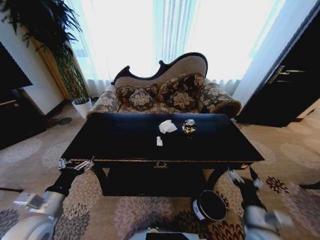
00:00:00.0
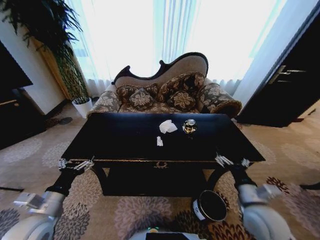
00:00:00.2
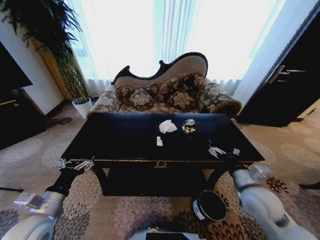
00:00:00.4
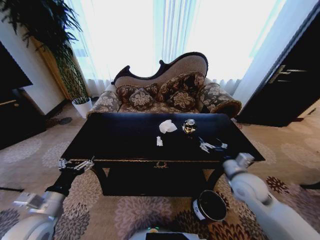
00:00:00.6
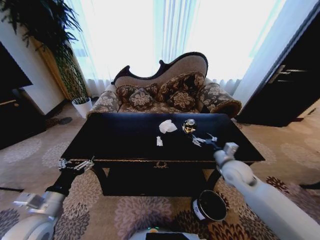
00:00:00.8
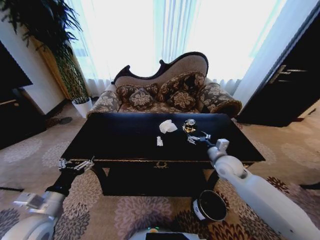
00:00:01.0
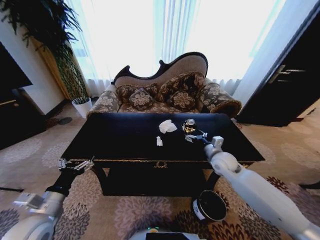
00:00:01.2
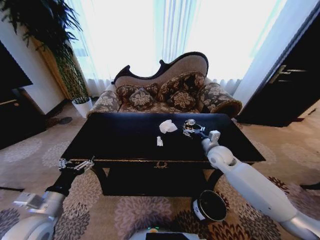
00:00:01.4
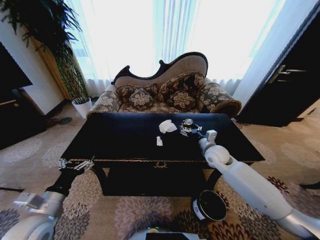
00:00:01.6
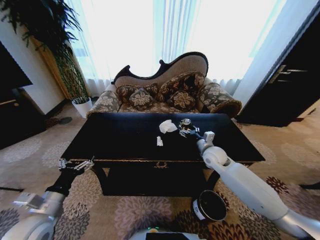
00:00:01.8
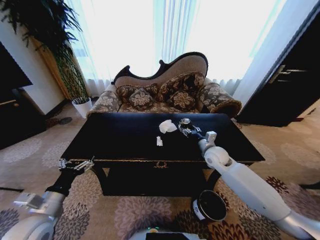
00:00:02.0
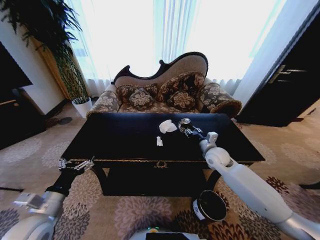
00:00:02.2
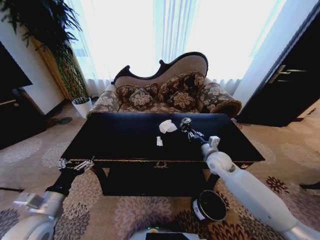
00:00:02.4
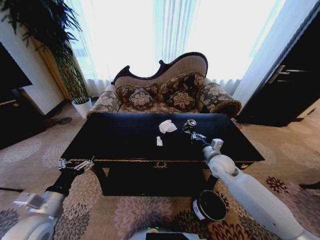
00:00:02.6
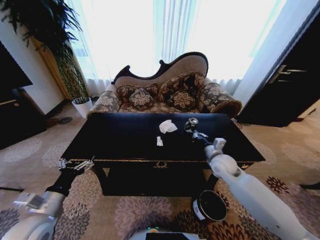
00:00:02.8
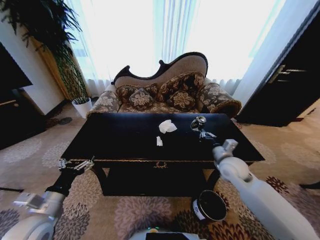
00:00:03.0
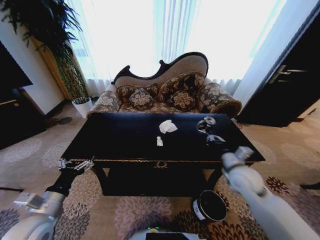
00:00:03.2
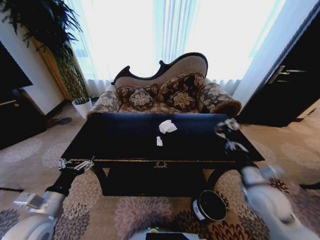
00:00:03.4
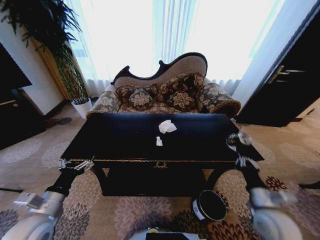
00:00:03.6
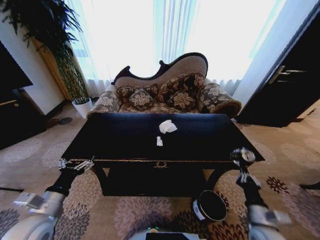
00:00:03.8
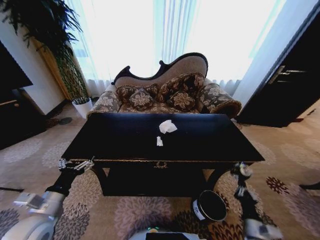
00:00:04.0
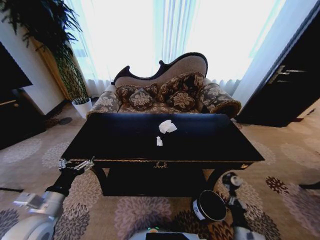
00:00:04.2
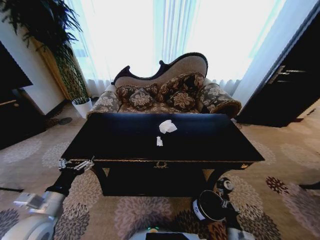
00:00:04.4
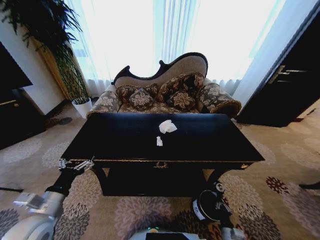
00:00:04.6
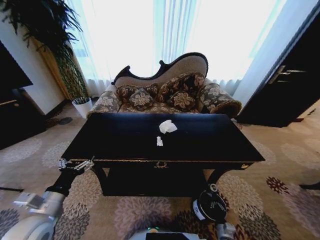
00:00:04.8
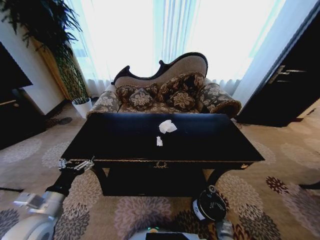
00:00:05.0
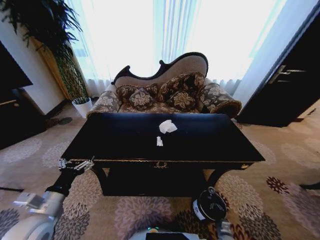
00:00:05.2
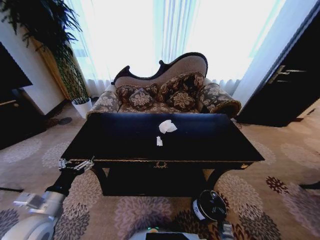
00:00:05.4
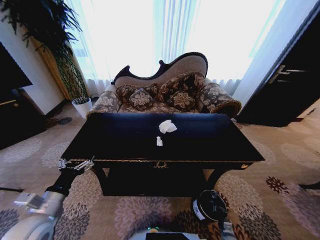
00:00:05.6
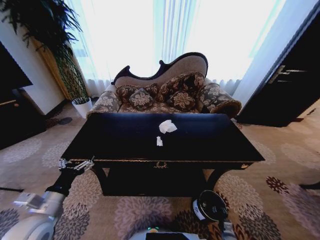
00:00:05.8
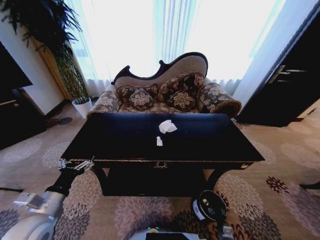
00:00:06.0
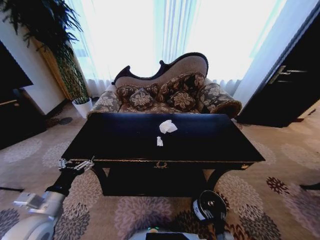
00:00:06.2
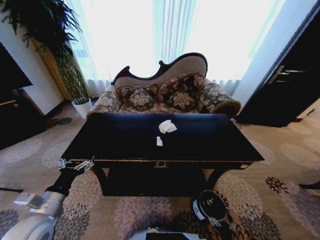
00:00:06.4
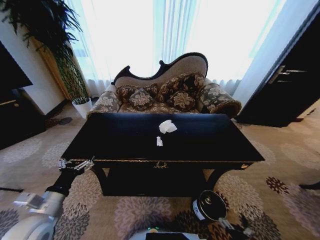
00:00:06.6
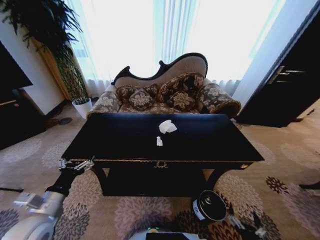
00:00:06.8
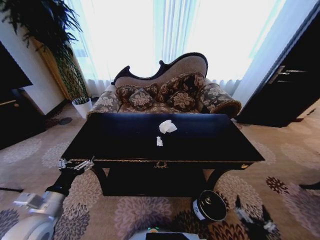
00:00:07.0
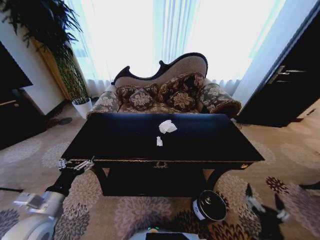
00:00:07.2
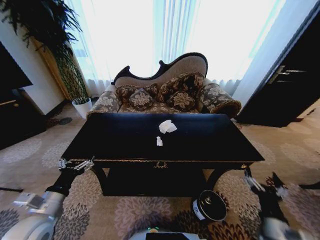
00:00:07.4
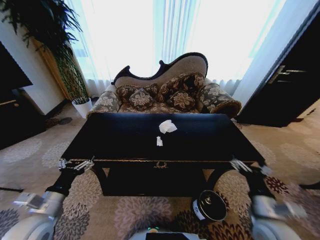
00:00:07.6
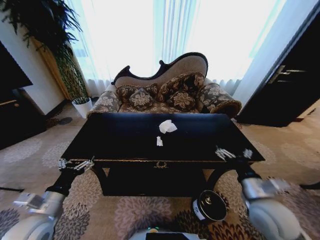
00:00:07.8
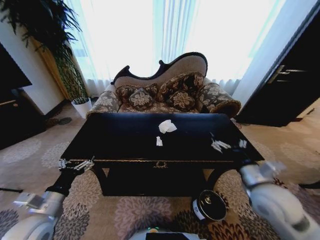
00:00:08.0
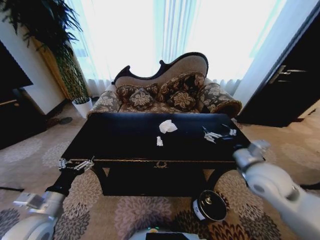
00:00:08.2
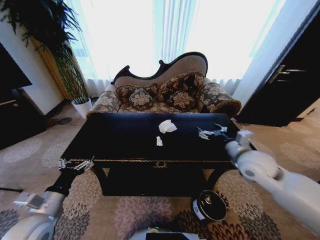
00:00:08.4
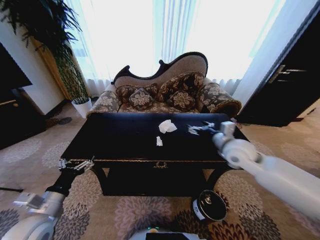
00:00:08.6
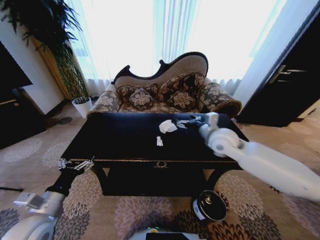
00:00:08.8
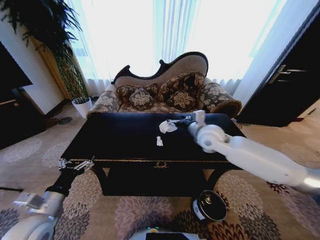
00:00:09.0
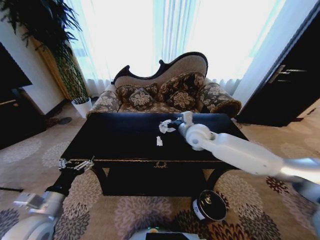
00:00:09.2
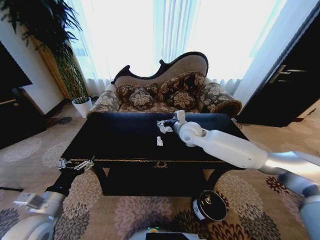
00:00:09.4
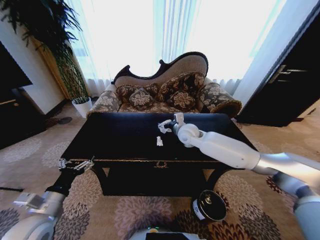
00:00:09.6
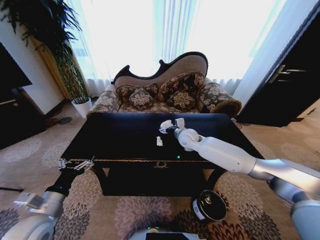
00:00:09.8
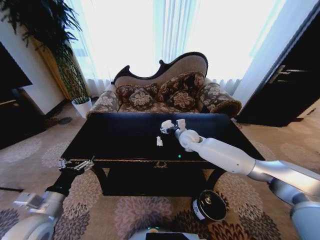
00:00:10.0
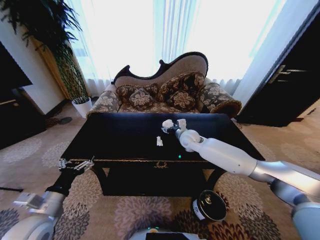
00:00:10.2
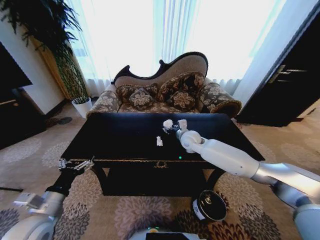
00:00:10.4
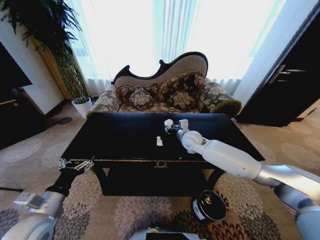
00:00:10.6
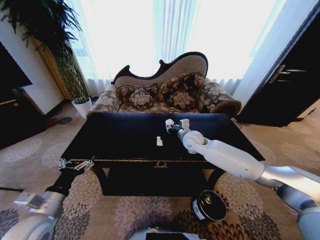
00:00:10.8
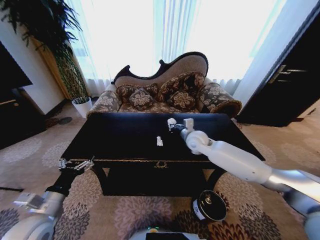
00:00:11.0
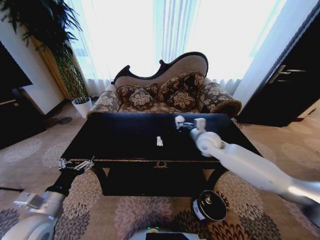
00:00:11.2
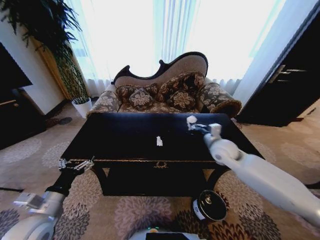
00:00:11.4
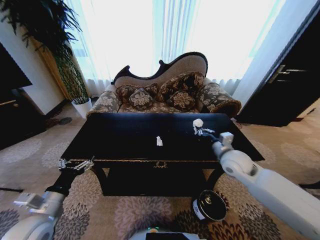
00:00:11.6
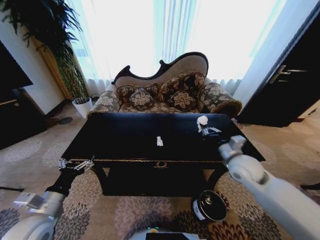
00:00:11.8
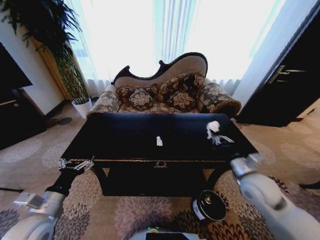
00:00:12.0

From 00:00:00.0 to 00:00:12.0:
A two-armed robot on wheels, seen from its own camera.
Task of the whole recording: Move to the front of the table and place the trash on the table into the trash bin.
From 00:00:00.0 to 00:00:01.6: The right gripper heads forward, covering roughly 30 cm.
From 00:00:01.6 to 00:00:03.0: The right gripper goes some 5 cm backward, and closes its fingers.
From 00:00:03.0 to 00:00:04.4: The right gripper moves downward and backward, about 40 cm.
From 00:00:04.4 to 00:00:06.0: The right gripper heads downward, covering roughly 15 cm, and opens its fingers.
From 00:00:06.0 to 00:00:07.6: The right gripper shifts some 40 cm upward, and opens its fingers.
From 00:00:07.6 to 00:00:09.0: The right gripper travels forward, upward and to the left by about 35 cm.
From 00:00:09.0 to 00:00:10.4: The right gripper travels downward and forward by some 10 cm, and closes up.
From 00:00:10.4 to 00:00:12.0: The right gripper travels backward and to the right by roughly 30 cm, and closes its fingers.

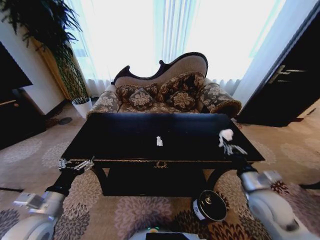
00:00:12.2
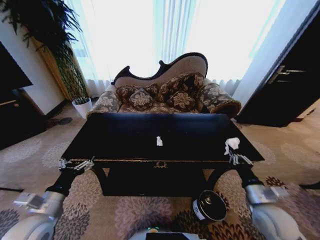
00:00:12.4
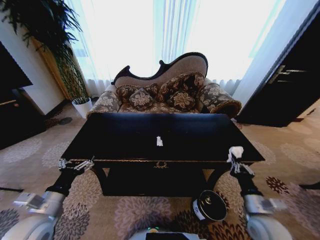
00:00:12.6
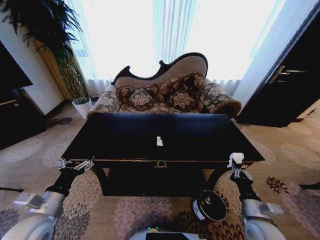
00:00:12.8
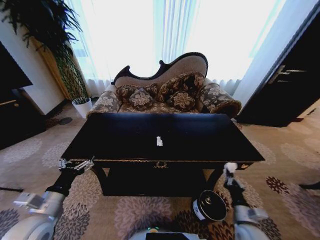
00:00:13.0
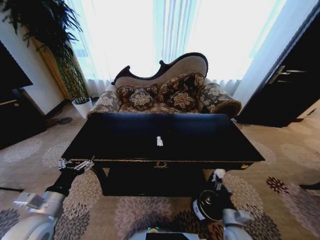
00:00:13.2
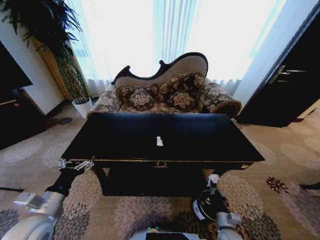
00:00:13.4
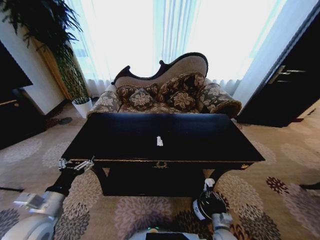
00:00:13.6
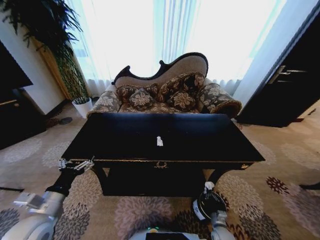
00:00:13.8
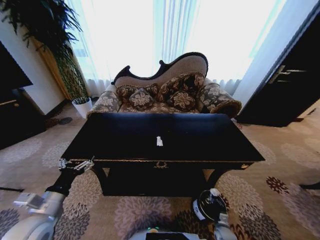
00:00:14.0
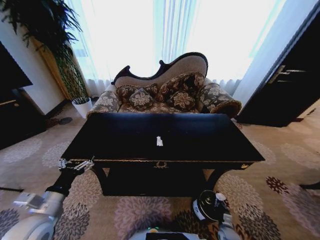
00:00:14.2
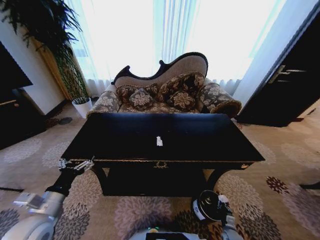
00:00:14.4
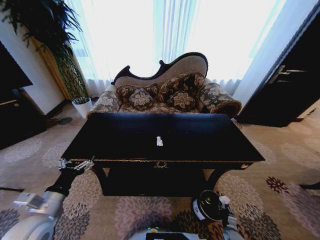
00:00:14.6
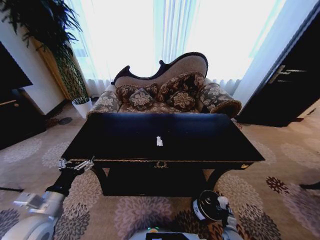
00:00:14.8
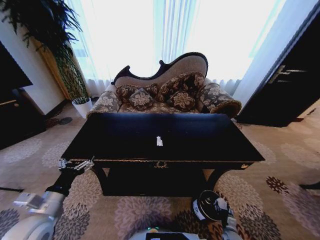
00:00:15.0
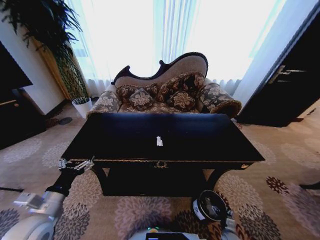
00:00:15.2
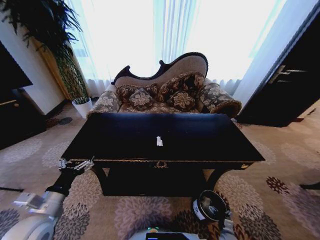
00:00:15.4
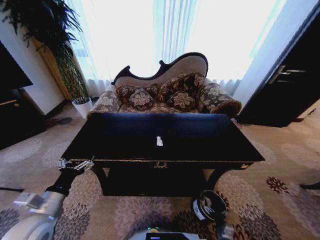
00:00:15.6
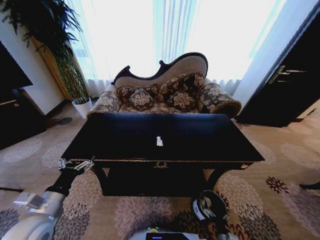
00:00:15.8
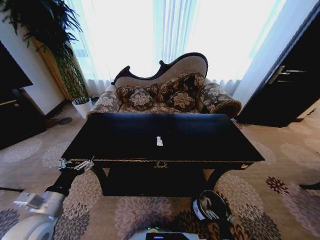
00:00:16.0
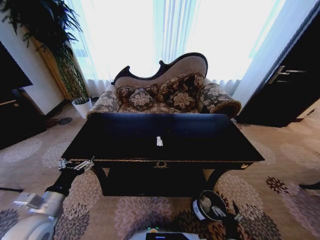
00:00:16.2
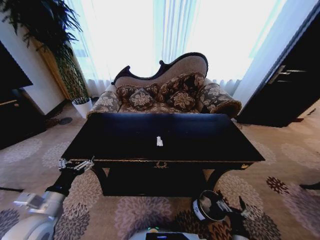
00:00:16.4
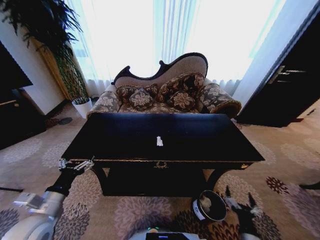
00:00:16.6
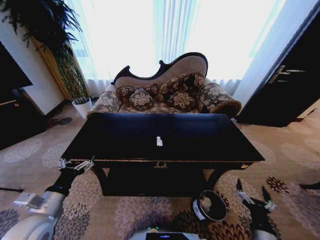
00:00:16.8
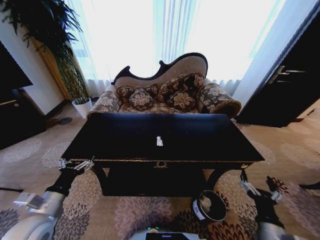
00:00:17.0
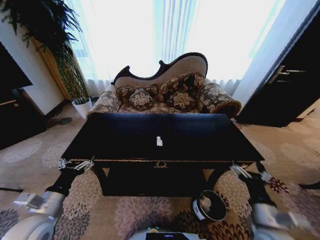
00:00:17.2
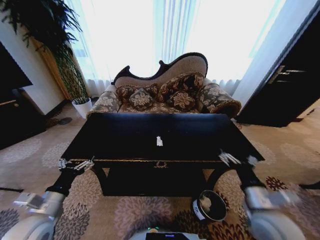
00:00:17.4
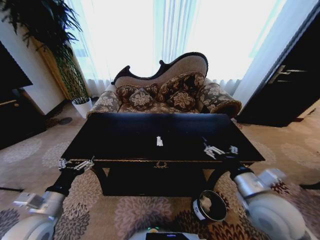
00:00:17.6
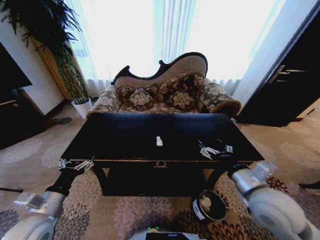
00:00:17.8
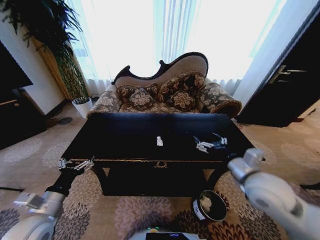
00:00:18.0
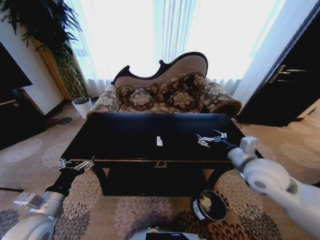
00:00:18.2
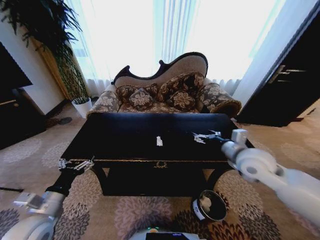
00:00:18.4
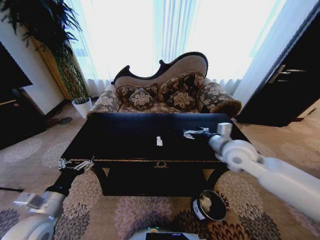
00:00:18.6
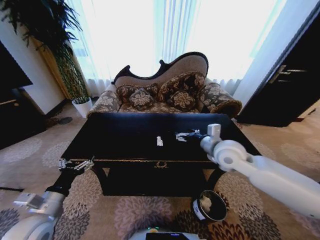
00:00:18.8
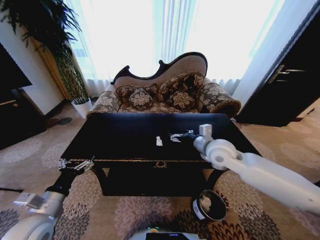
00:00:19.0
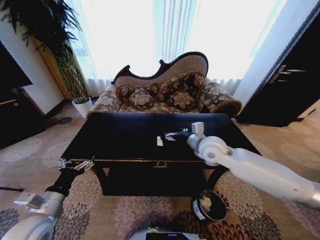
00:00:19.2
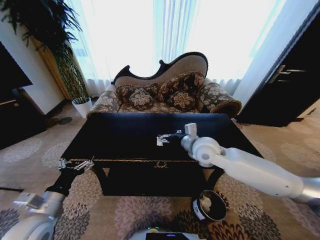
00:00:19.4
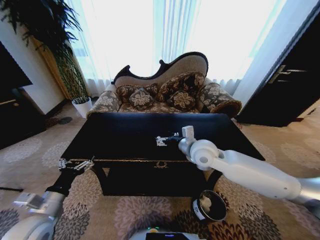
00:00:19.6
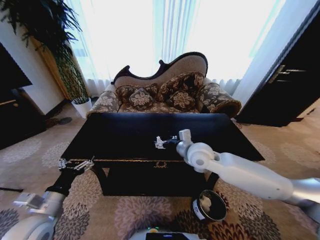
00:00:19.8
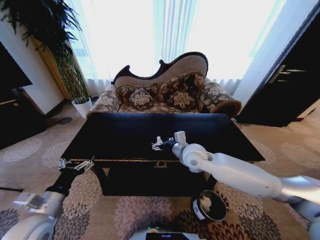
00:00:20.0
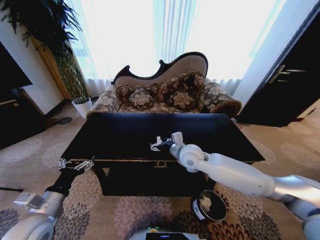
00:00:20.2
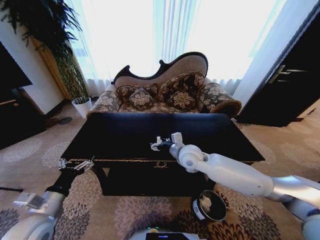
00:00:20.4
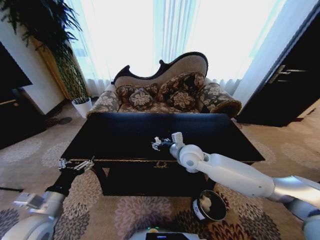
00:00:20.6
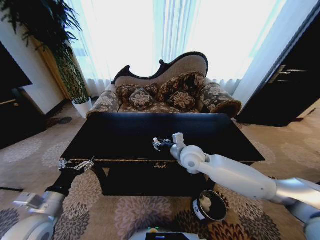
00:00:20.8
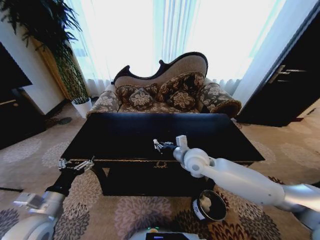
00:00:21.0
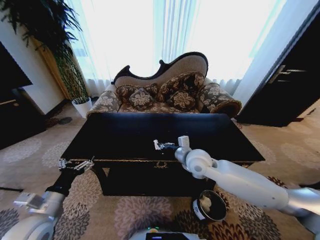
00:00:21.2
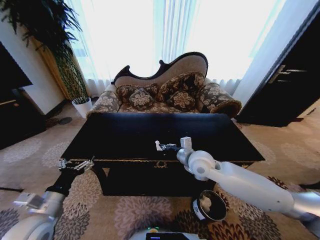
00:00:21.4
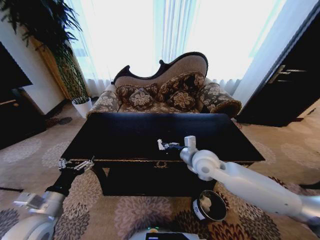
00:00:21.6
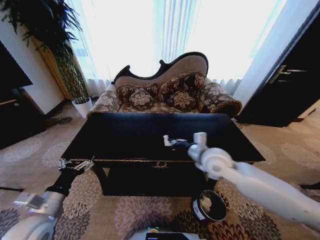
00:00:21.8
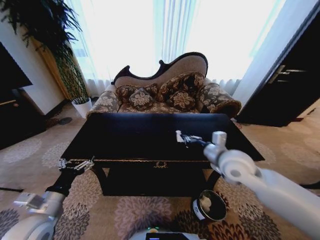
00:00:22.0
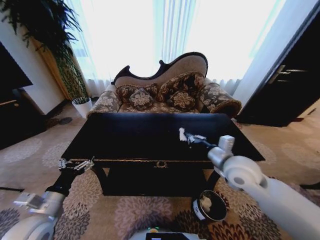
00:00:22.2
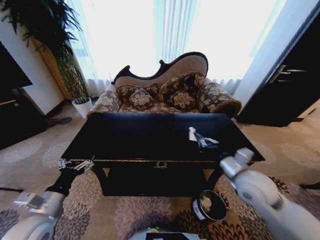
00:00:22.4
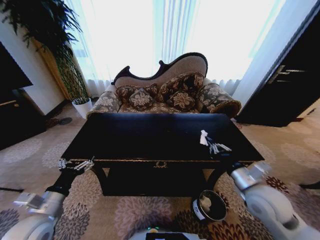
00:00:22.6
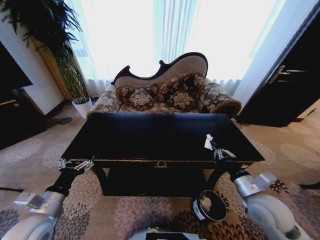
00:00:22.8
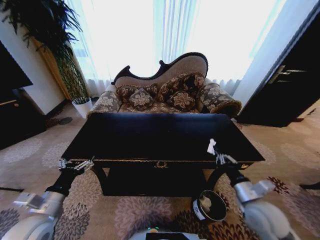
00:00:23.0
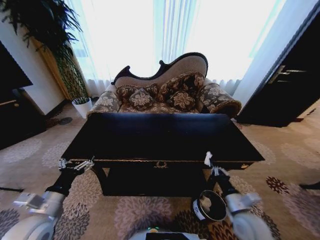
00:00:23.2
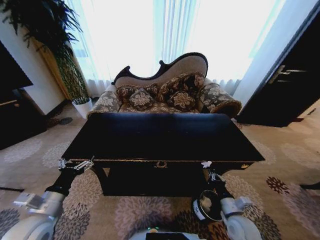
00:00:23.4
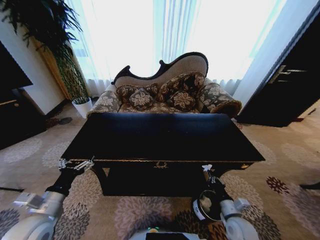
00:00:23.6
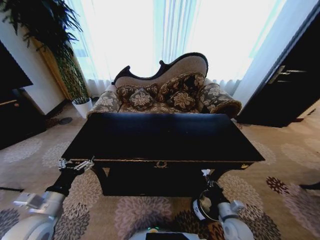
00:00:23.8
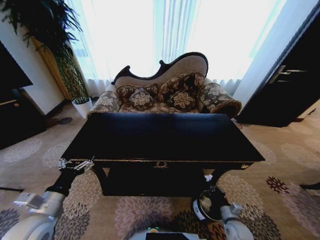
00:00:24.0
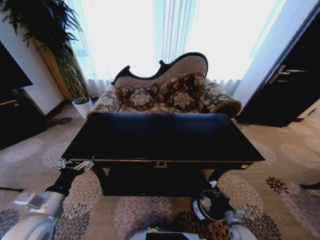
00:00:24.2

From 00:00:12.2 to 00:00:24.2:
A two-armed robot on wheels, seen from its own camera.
Task of the whole recording: Move to the front of the table and place the trash on the table into the trash bin.
From 00:00:12.2 to 00:00:13.8: The right gripper goes roughly 35 cm downward.
From 00:00:13.8 to 00:00:15.2: The right gripper shifts about 10 cm to the right and downward, and opens.
From 00:00:15.2 to 00:00:16.6: The right gripper heads upward, covering some 25 cm.
From 00:00:16.6 to 00:00:18.2: The right gripper shifts some 35 cm upward and forward.
From 00:00:18.2 to 00:00:19.8: The right gripper goes roughly 20 cm to the left and forward.
From 00:00:19.8 to 00:00:21.2: The right gripper closes up.
From 00:00:21.2 to 00:00:22.6: The right gripper travels to the right and backward by roughly 20 cm.
From 00:00:22.6 to 00:00:24.2: The right gripper goes about 35 cm downward.
